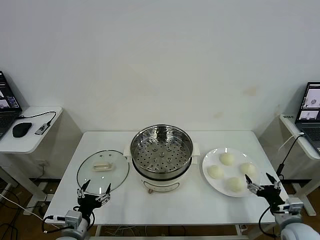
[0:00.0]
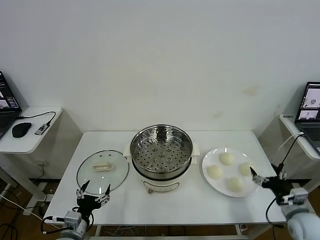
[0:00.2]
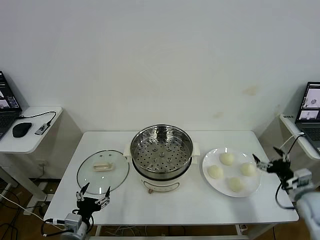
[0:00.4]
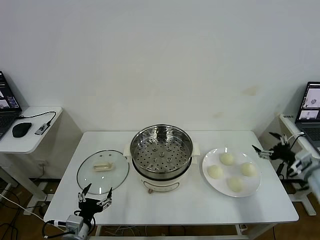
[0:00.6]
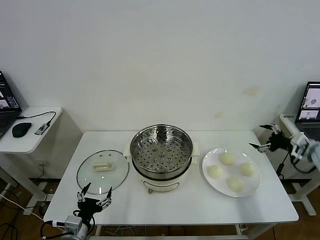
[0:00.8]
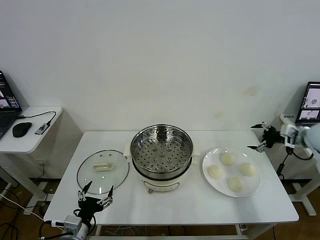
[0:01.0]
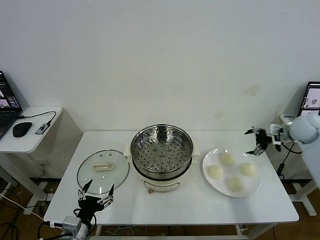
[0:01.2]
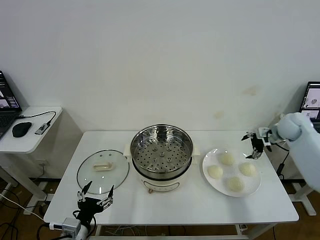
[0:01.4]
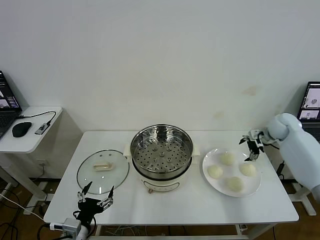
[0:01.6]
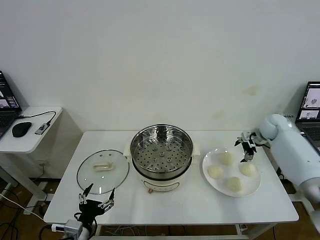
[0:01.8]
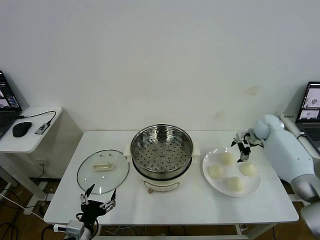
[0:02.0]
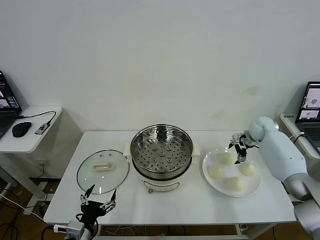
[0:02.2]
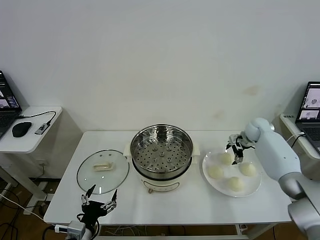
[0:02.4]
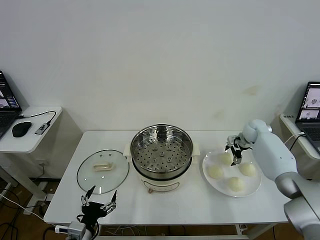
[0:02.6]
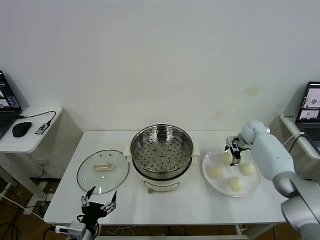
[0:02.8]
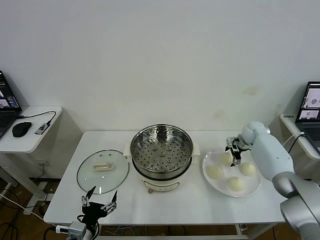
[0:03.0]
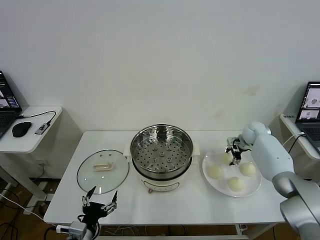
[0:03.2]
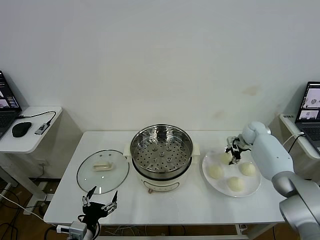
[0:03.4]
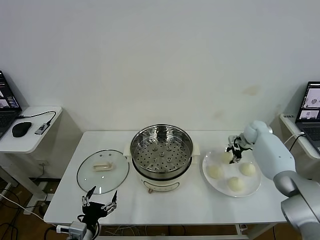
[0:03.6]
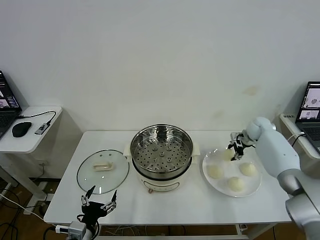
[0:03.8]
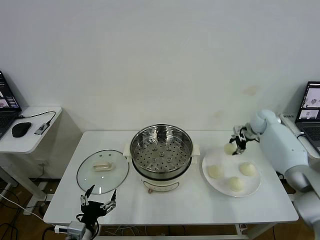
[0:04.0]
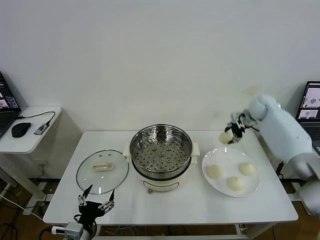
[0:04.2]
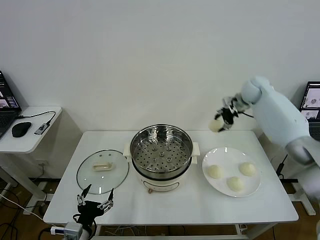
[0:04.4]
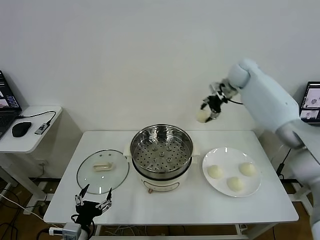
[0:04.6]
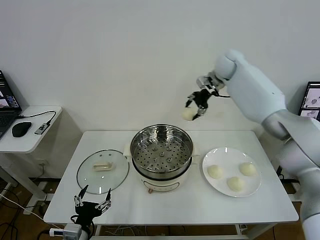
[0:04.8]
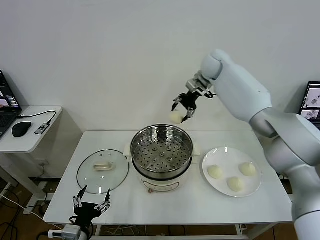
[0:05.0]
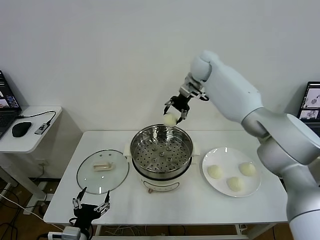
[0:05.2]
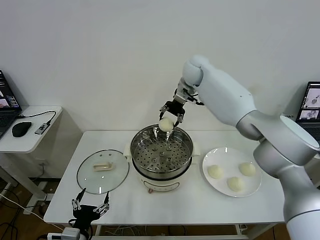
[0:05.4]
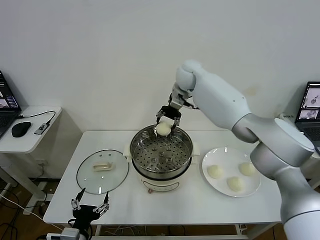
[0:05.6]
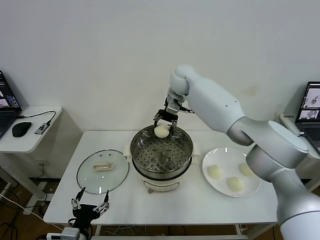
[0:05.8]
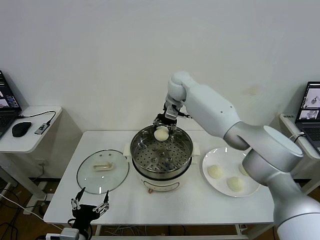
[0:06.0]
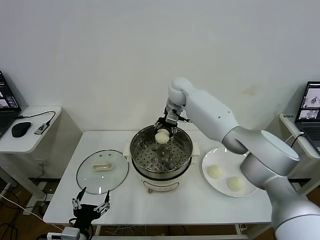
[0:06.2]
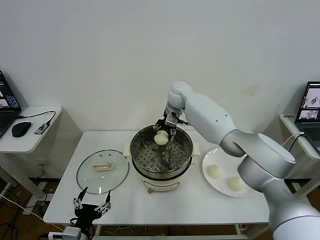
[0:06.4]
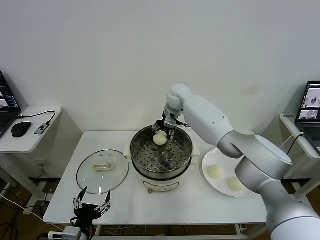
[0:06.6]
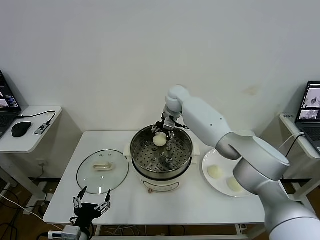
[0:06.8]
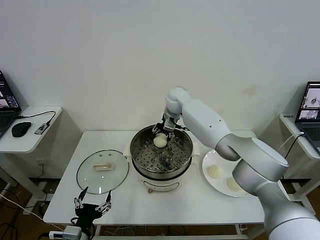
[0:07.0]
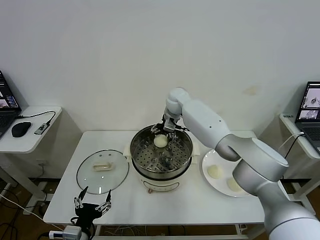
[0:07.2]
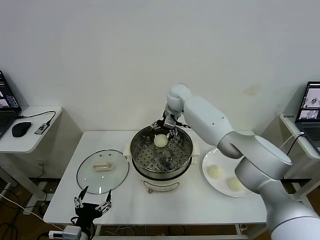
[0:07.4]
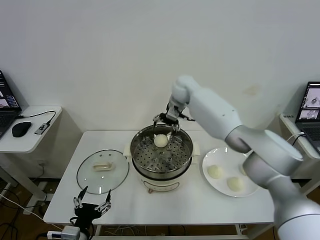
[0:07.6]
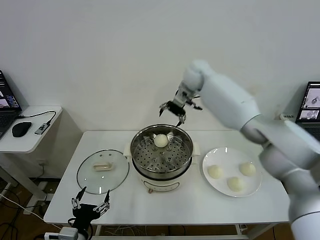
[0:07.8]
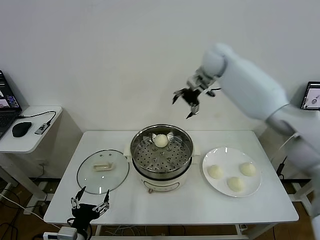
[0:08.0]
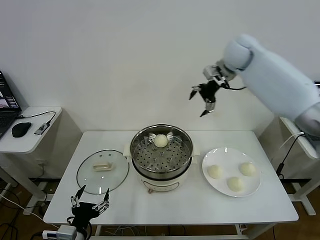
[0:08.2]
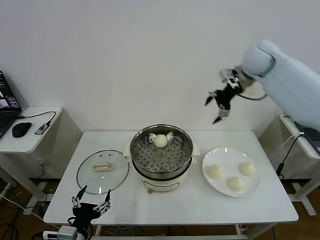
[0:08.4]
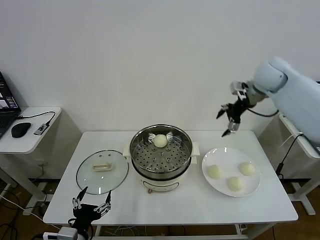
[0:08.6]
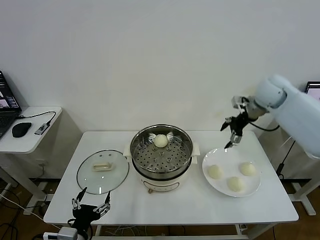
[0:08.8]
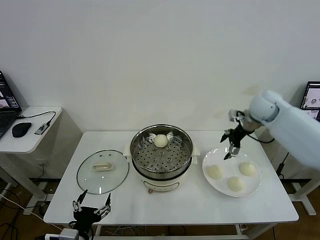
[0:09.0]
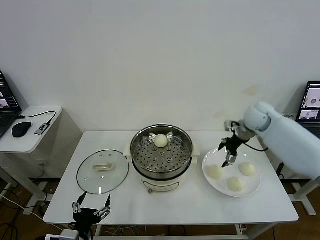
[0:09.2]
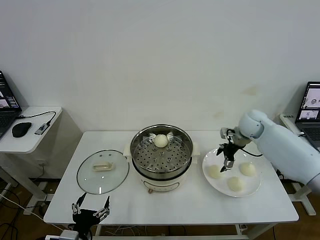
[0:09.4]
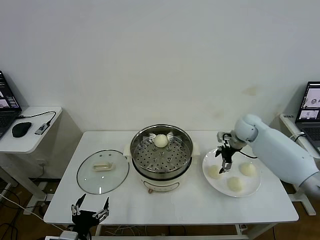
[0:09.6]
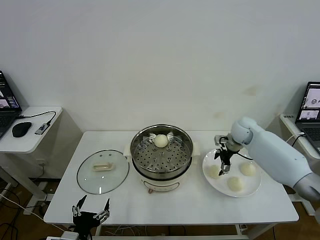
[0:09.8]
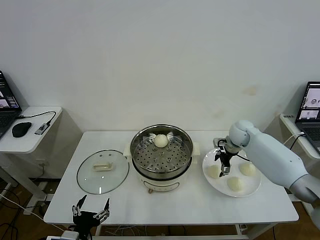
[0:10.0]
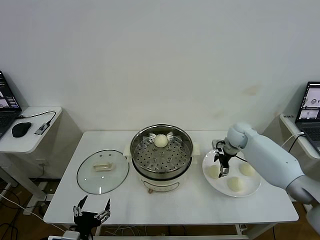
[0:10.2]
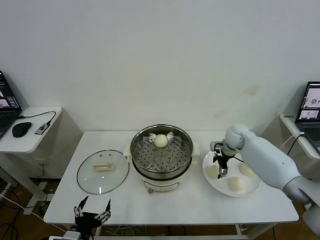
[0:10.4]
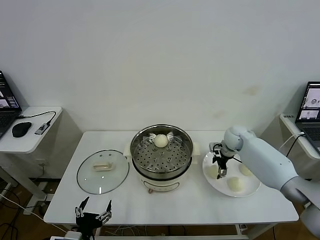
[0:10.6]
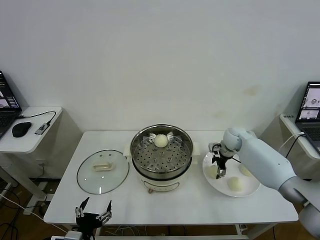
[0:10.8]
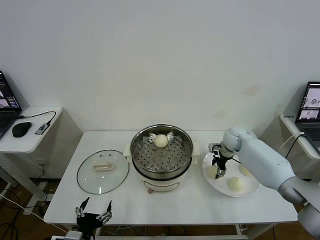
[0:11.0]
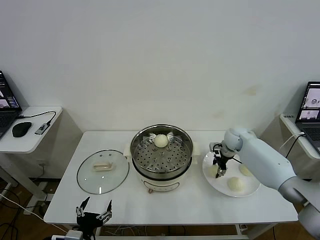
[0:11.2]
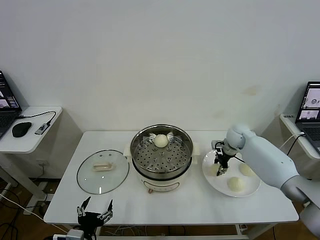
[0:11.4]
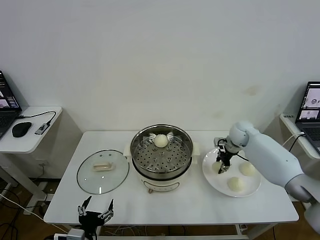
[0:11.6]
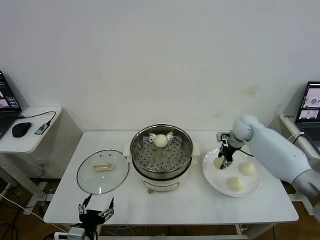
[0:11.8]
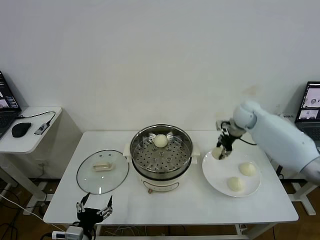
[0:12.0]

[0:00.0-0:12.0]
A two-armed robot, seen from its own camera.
Task of the whole recording: take steamed baozi put them in steamer then cover it.
Step, 0:00.0 to 0:03.4: Grasp the baozi in the plate with right gripper.
Step, 0:03.6 to 0:07.4: Place the baozi on the steamer with right gripper.
Step, 0:07.6 to 0:11.2: Grasp the baozi in the plate with right gripper.
0:01.6 to 0:03.0: The right gripper moves downward, about 5 cm.
0:03.0 to 0:04.4: The right gripper is displaced upward and to the left by roughly 25 cm, and closes its fingers.
0:04.4 to 0:06.0: The right gripper goes roughly 25 cm to the left.
0:06.0 to 0:07.6: The right gripper goes downward and returns, roughly 5 cm each way, and opens up.
0:07.6 to 0:09.0: The right gripper travels to the right by roughly 25 cm.
0:09.0 to 0:10.4: The right gripper travels downward by about 15 cm.
0:10.4 to 0:12.0: The right gripper shifts about 15 cm upward, and closes.

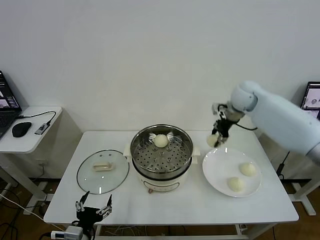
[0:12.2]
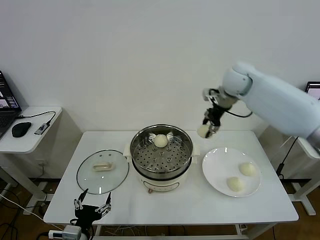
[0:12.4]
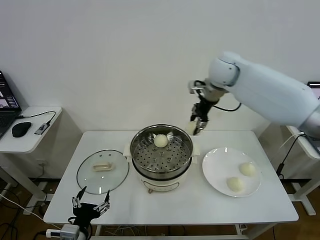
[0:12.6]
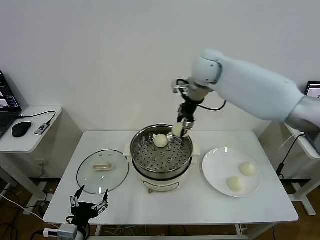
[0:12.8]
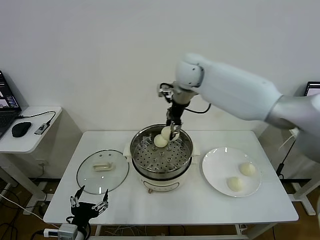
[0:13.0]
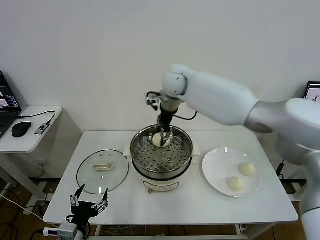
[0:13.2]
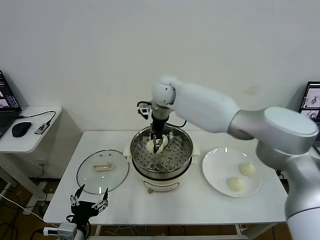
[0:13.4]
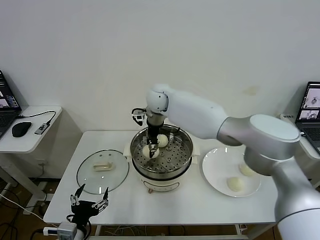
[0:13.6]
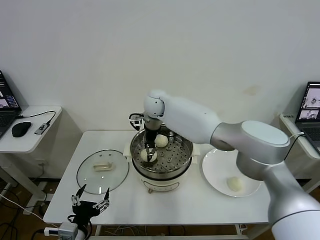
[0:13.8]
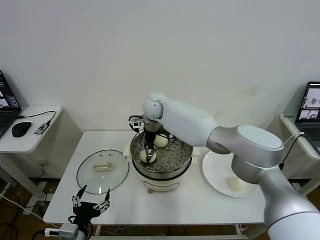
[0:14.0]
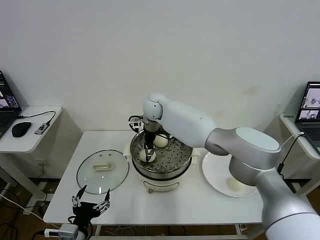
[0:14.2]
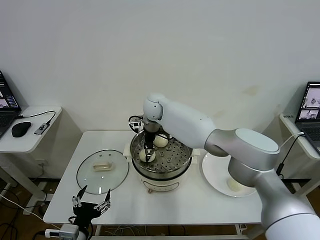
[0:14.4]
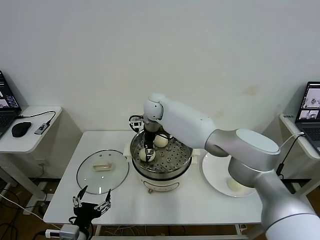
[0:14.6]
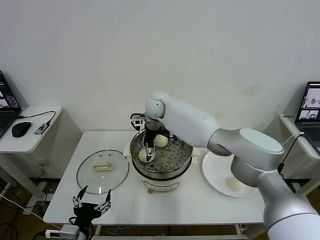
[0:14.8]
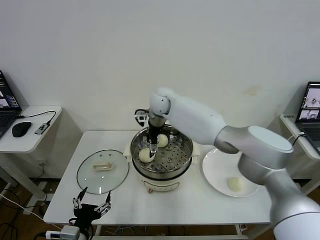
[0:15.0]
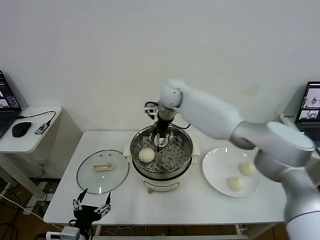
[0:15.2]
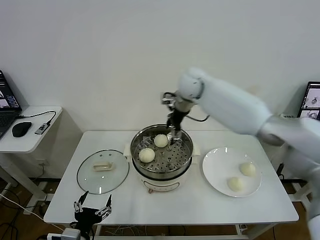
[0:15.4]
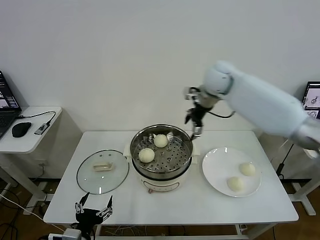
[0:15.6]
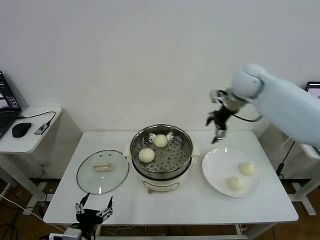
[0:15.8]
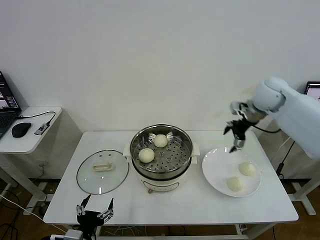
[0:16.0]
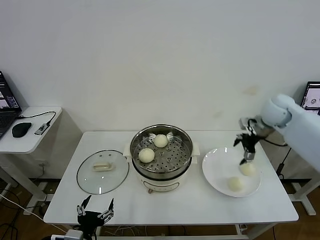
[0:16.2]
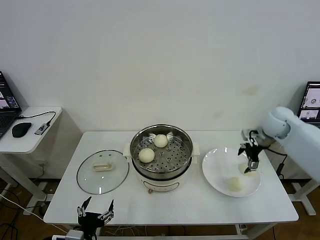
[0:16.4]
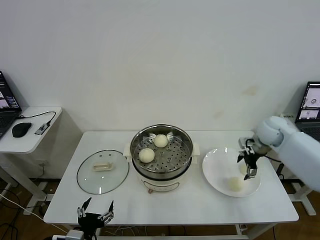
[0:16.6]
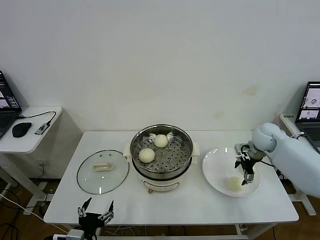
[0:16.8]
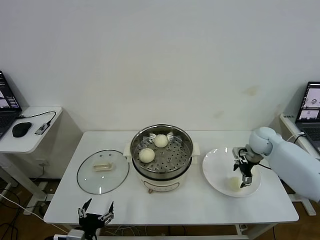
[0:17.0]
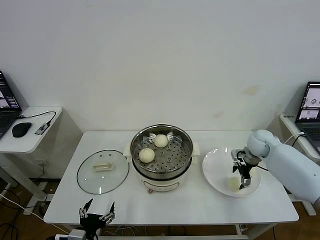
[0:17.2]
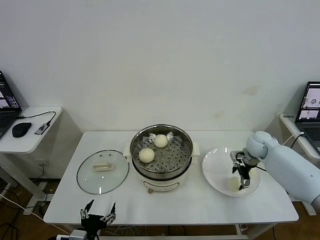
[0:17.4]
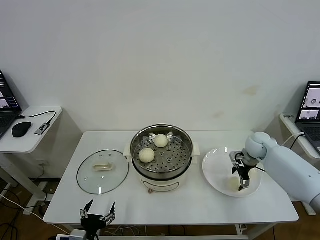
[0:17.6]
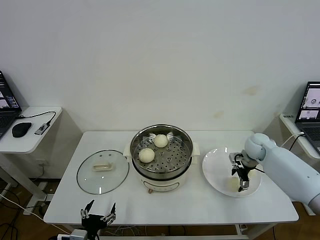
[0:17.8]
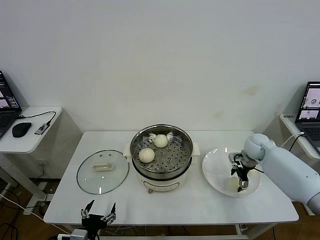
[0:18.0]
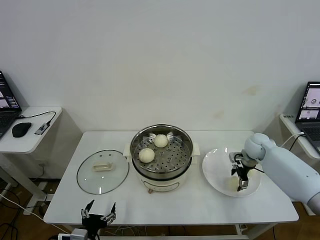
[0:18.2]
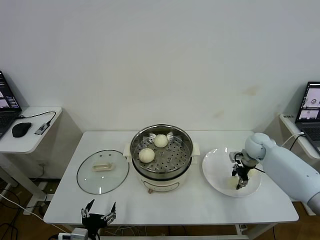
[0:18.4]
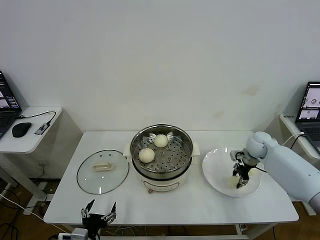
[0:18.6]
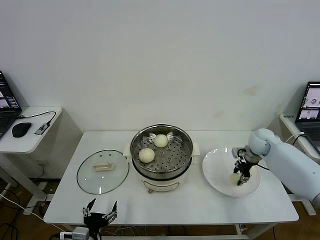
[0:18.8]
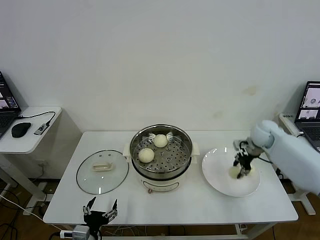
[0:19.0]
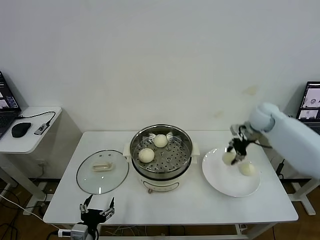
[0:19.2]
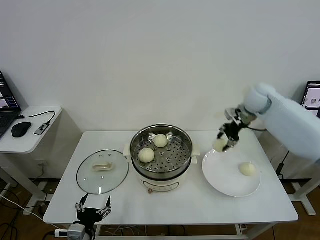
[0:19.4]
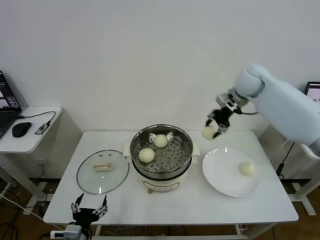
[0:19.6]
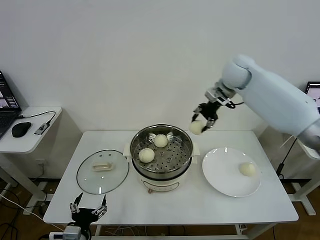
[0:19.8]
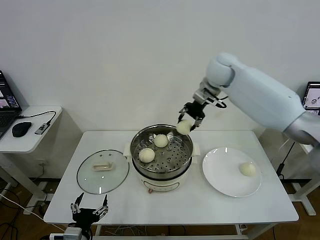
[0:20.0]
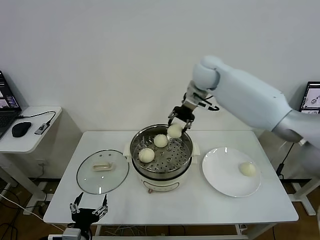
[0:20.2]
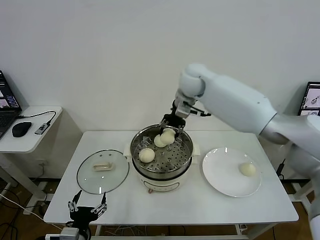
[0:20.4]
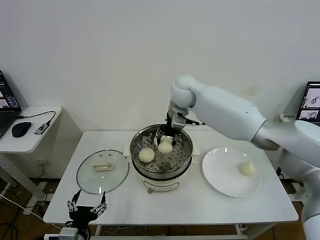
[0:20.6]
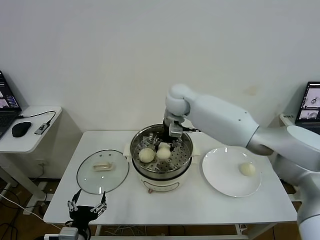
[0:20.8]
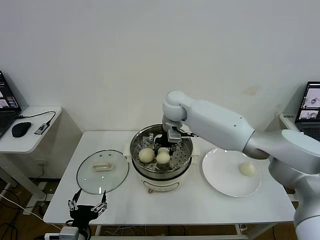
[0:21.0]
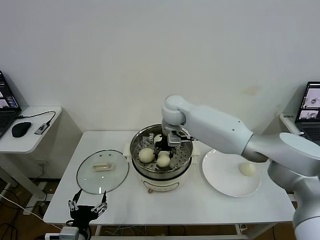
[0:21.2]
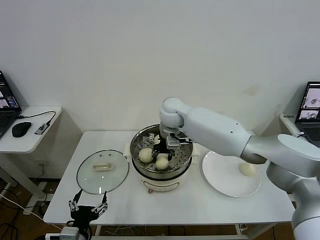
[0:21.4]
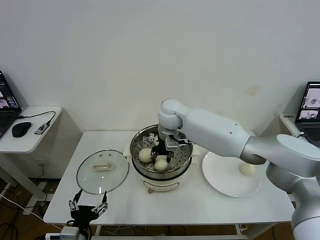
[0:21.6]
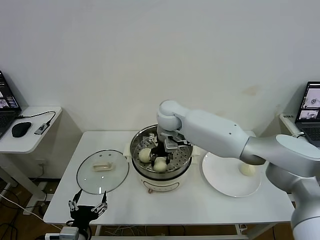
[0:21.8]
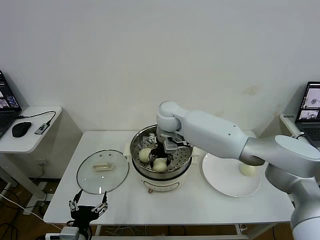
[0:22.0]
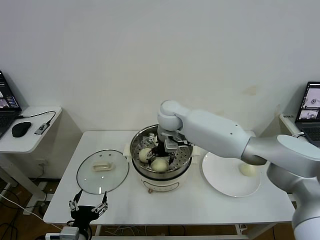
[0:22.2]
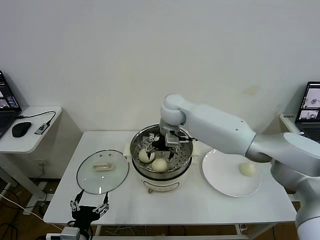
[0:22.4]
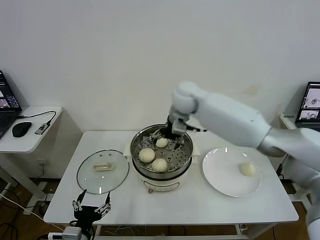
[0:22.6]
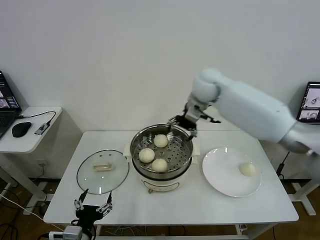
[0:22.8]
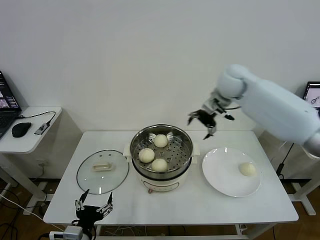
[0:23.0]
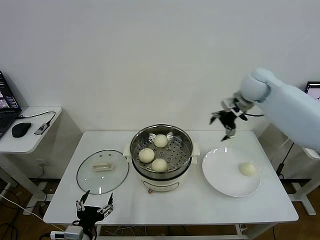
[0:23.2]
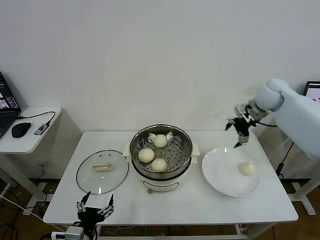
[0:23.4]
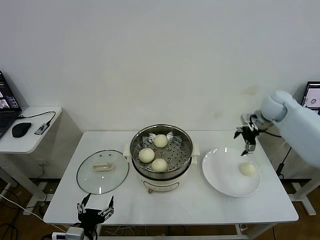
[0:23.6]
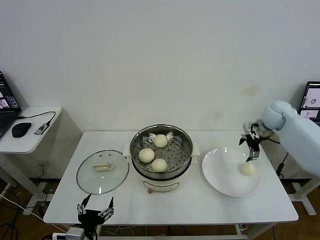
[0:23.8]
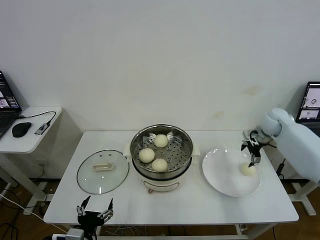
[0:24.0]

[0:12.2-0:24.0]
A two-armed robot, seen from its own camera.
Task of the whole recording: take steamed baozi put them in steamer then cover it.
Step, 0:12.2 to 0:14.8: Place the baozi on the steamer with right gripper.
Step, 0:15.0 to 0:18.8: Grasp the baozi in the plate with right gripper.
Step, 0:19.0 to 0:22.4: Place the baozi on the steamer with right gripper.
0:12.2 to 0:13.6: The right gripper heads to the left, covering some 30 cm.
0:13.6 to 0:15.2: The right gripper shifts some 10 cm to the right, and opens its fingers.
0:15.2 to 0:16.6: The right gripper travels to the right by approximately 30 cm.
0:16.6 to 0:18.2: The right gripper heads downward, covering roughly 10 cm.
0:18.2 to 0:19.6: The right gripper heads upward and to the left, covering approximately 25 cm, and closes its fingers.
0:19.6 to 0:21.0: The right gripper heads to the left and downward, covering roughly 25 cm.
0:21.0 to 0:22.6: The right gripper travels upward by about 5 cm, and opens its fingers.
0:22.6 to 0:24.0: The right gripper moves to the right, roughly 35 cm.
